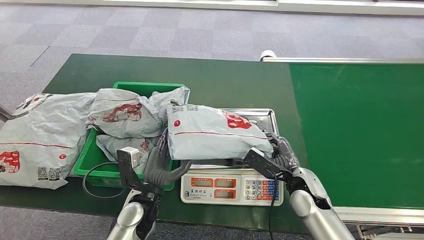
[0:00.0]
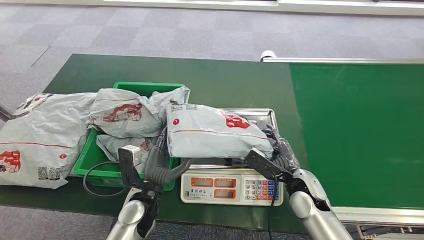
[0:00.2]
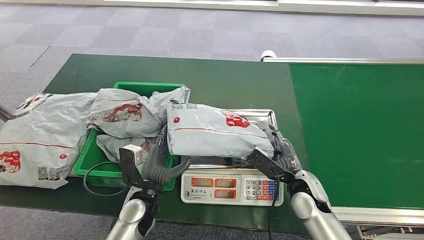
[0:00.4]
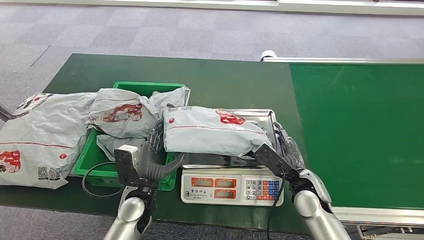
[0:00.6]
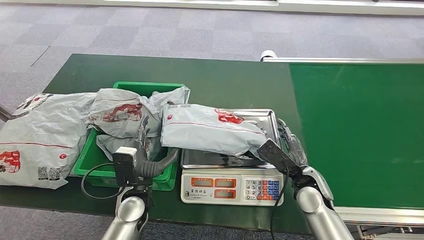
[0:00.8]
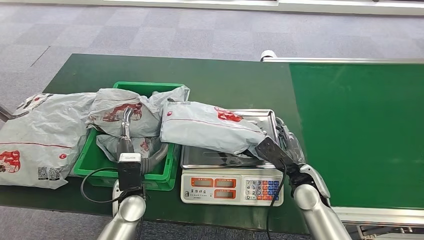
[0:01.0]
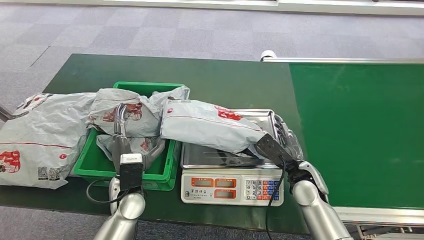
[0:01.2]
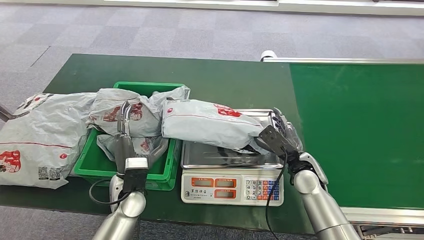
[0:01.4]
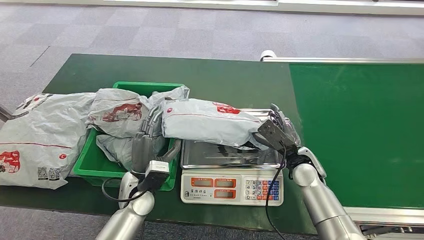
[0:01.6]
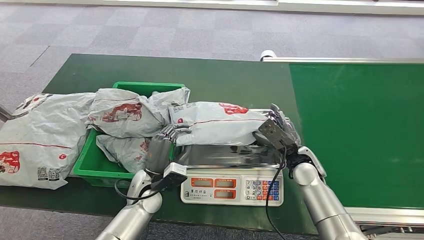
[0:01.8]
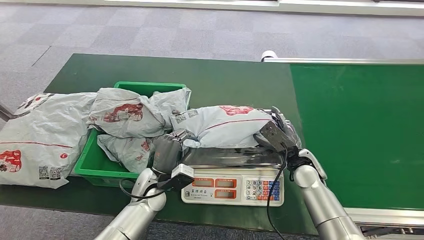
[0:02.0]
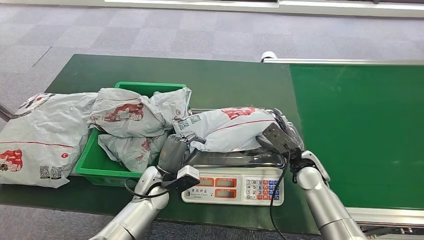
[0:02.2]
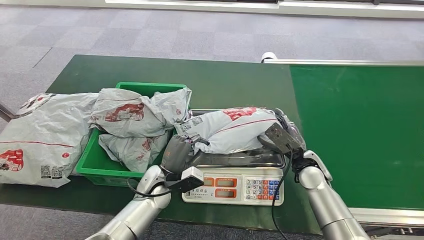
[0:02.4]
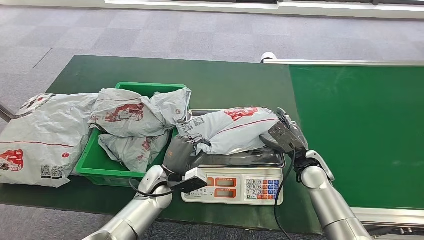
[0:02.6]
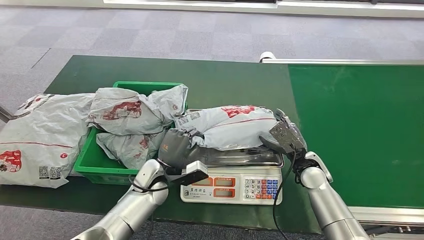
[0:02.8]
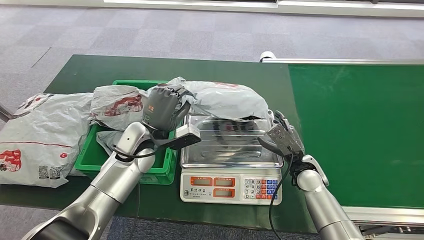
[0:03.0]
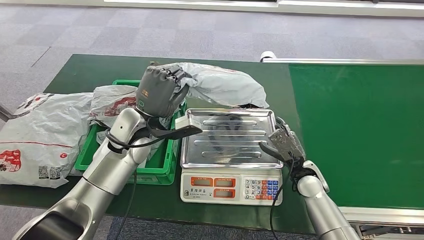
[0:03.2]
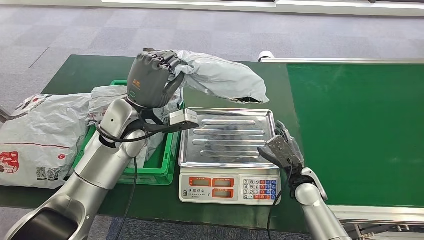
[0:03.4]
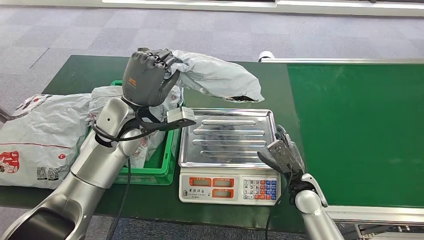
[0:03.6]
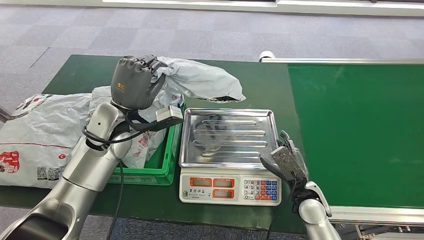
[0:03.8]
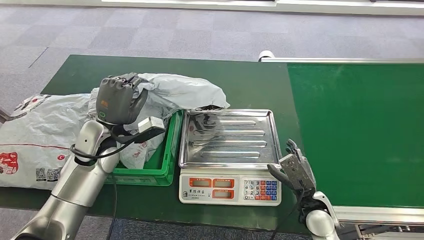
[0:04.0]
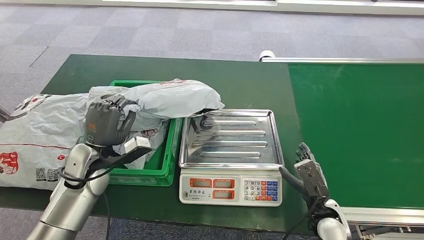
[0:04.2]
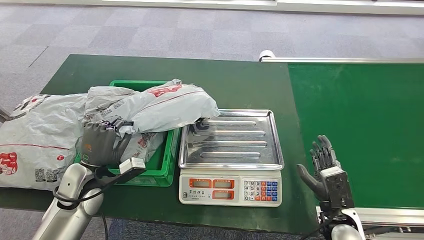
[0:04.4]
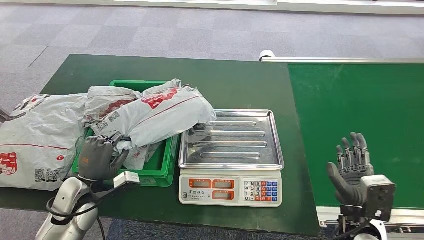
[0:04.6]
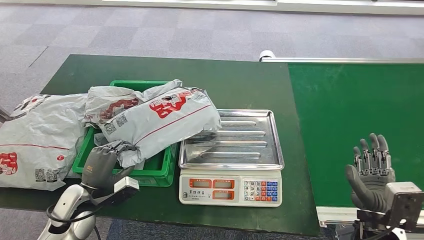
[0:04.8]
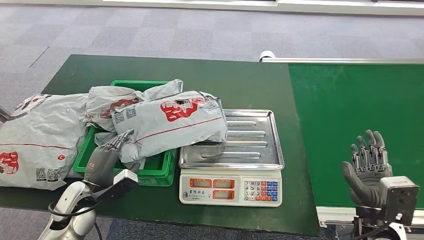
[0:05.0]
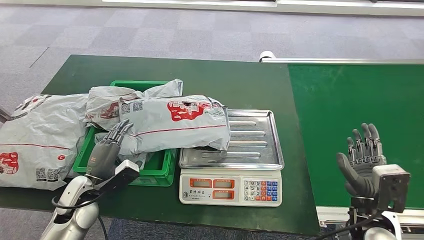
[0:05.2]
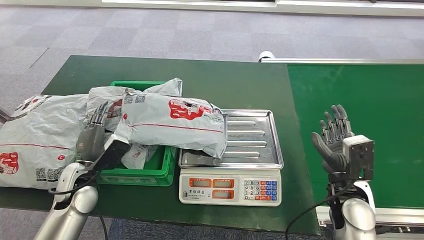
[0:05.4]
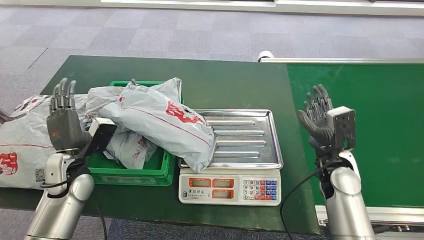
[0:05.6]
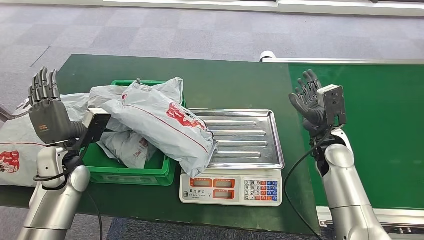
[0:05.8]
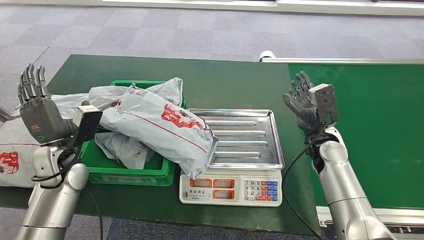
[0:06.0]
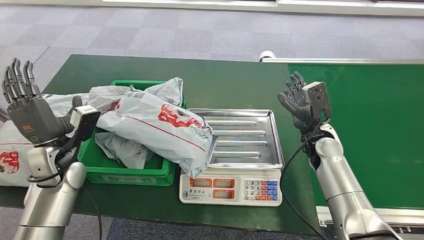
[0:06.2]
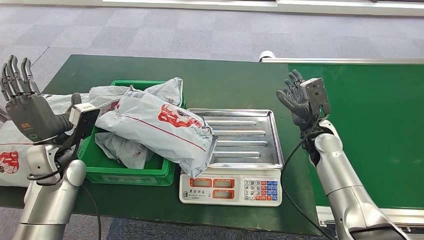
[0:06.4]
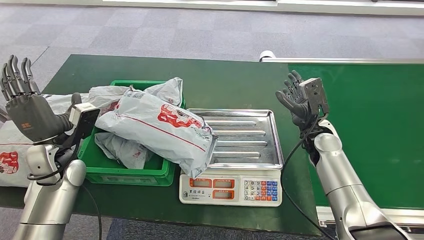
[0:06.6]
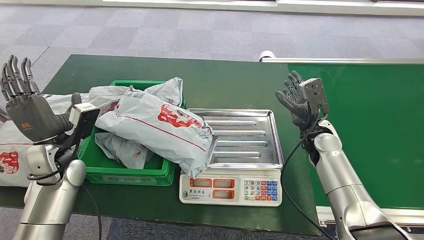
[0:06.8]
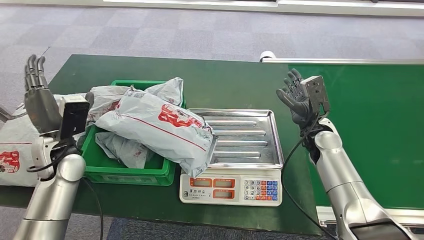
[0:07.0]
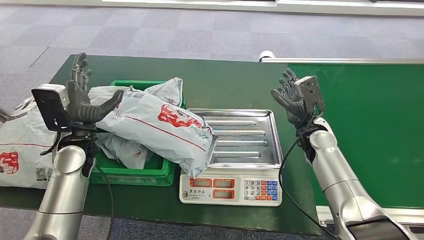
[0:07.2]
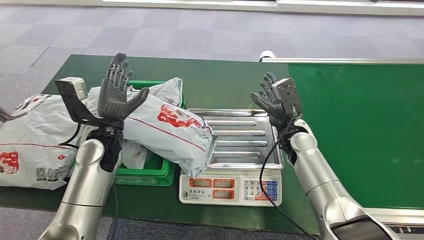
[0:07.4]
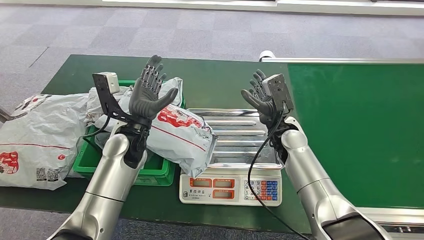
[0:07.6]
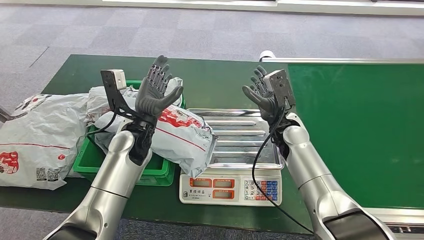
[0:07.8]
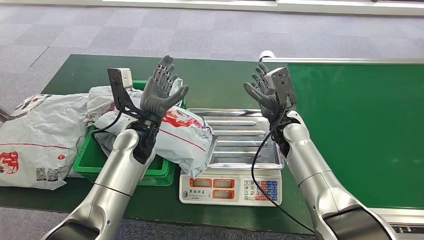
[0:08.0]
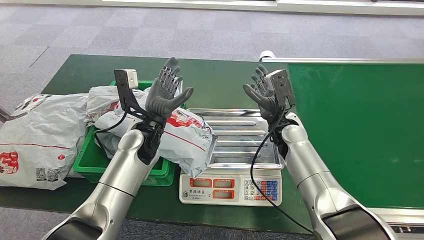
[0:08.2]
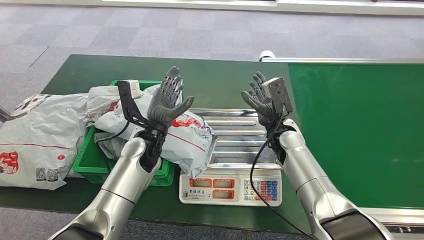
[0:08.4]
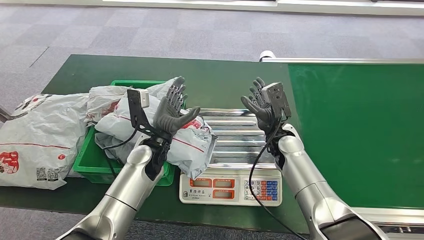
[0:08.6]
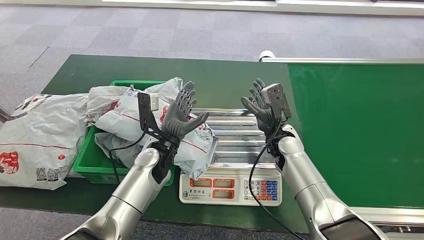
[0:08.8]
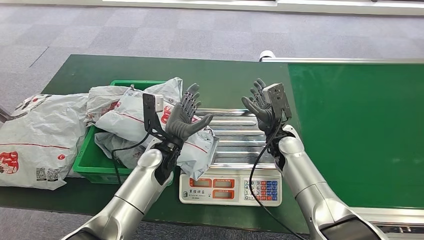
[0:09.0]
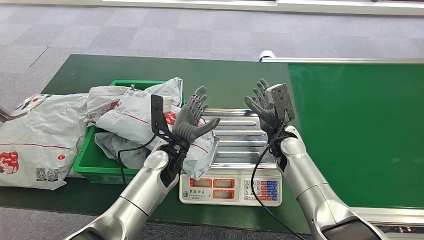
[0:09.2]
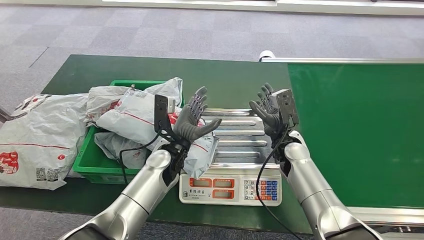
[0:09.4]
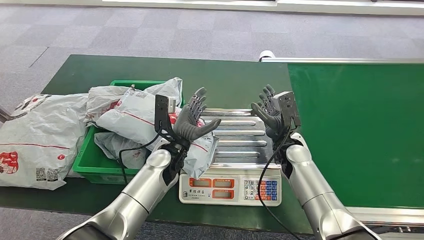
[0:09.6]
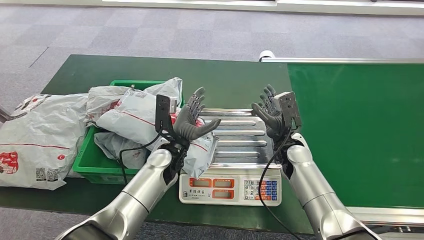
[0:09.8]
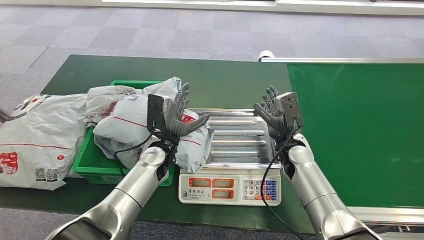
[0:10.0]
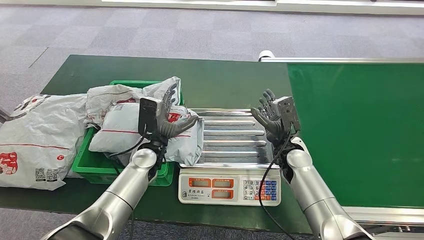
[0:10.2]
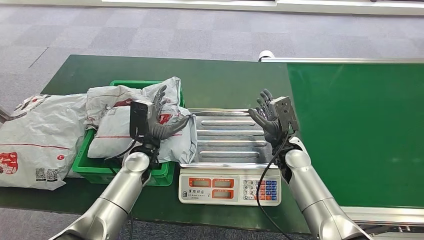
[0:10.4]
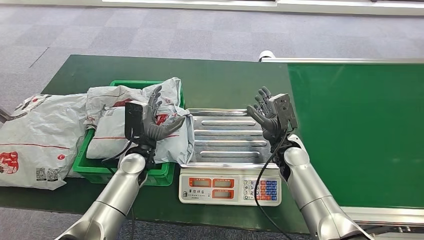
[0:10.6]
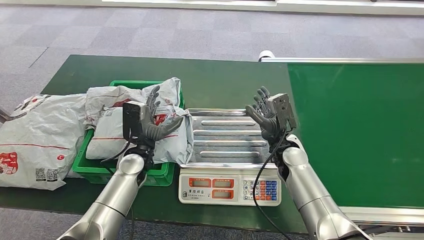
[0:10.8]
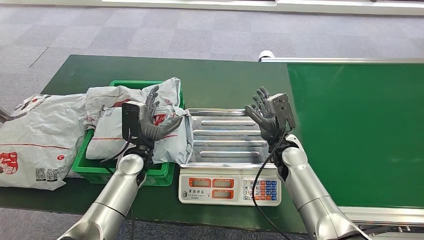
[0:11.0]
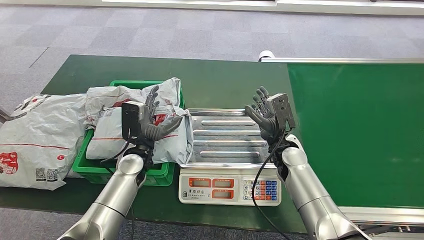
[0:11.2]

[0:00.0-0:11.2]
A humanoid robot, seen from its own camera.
Step, 0:01.4 to 0:03.8: Pick up the parcel from the inbound machine.
0:00.0 to 0:01.6: The right hand shifts approximately 5 cm forward.
0:08.0 to 0:09.6: The left hand goes roughly 10 cm to the right and downward, while the right hand moves downward, about 5 cm.
0:09.6 to 0:11.2: The left hand moves to the left, approximately 10 cm.

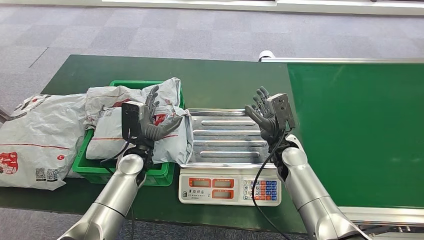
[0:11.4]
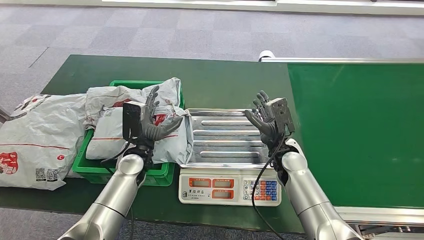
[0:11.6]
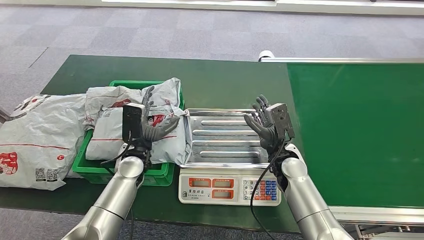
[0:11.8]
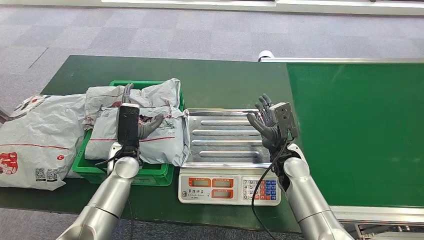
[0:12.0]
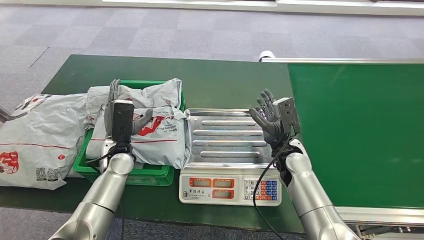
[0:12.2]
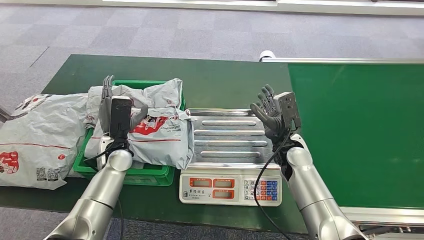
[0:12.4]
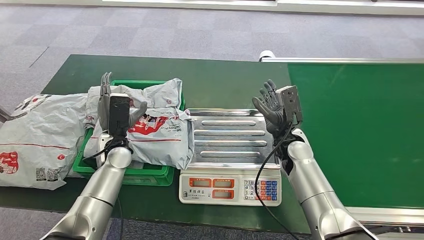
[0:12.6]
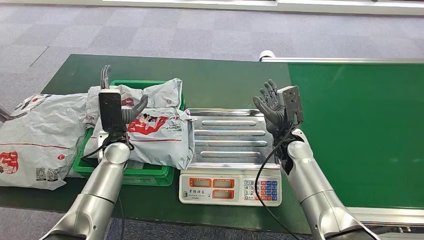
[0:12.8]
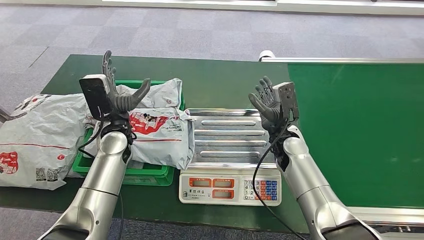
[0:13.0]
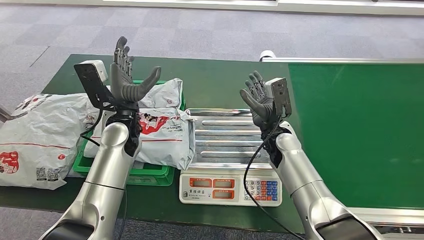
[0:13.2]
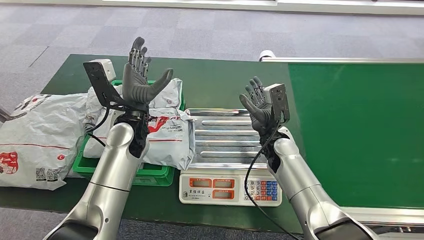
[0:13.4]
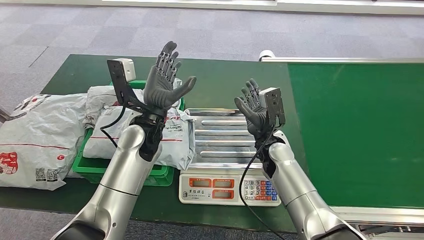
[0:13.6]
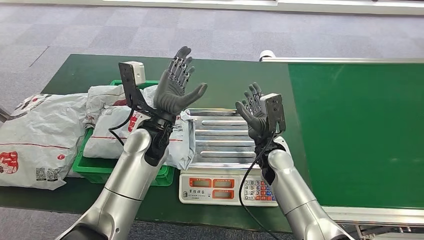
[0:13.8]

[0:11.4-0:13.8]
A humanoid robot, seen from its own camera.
Step, 0:11.4 to 0:13.8: Place the parcel into the delivery box.
0:11.4 to 0:12.6: The left hand heads to the left, covering roughly 5 cm.
